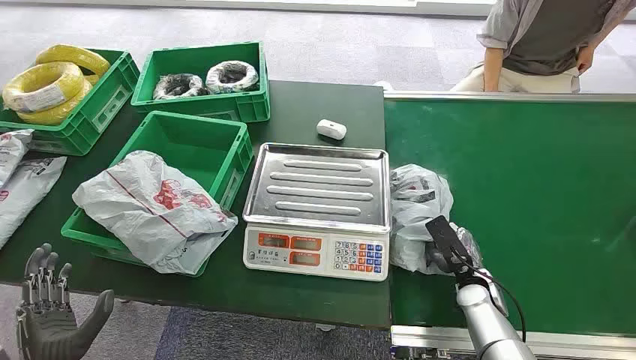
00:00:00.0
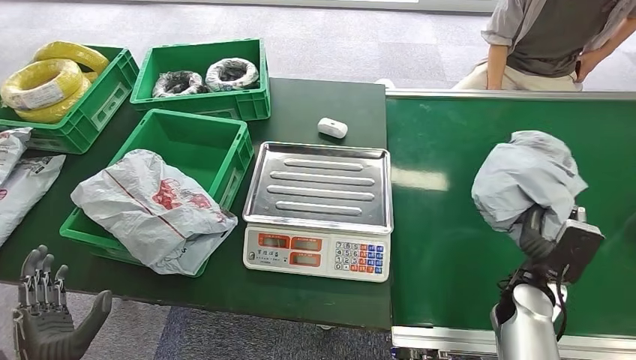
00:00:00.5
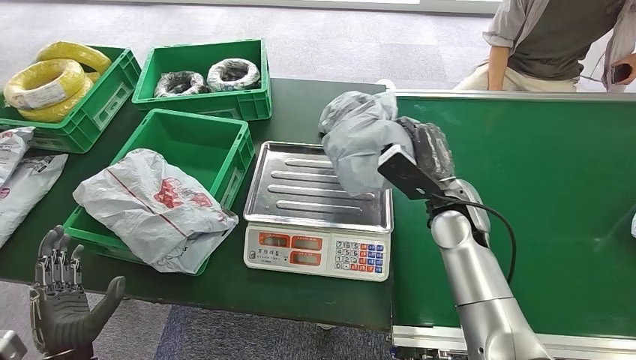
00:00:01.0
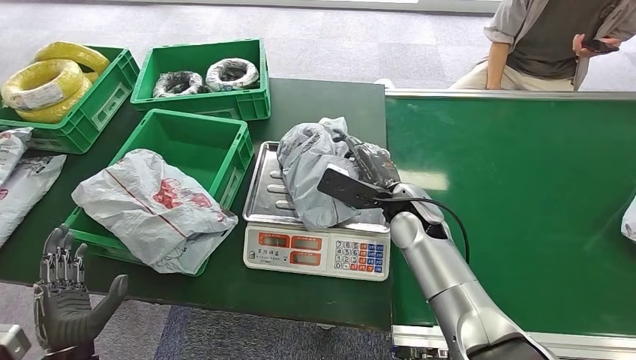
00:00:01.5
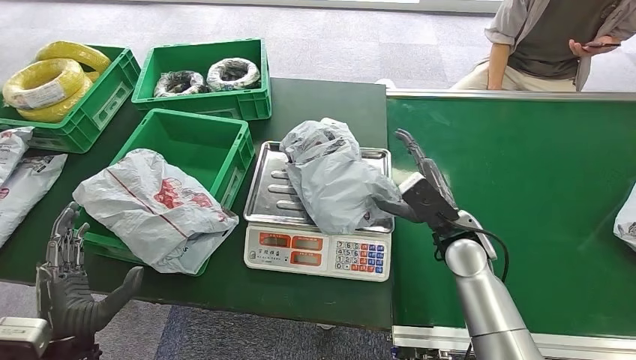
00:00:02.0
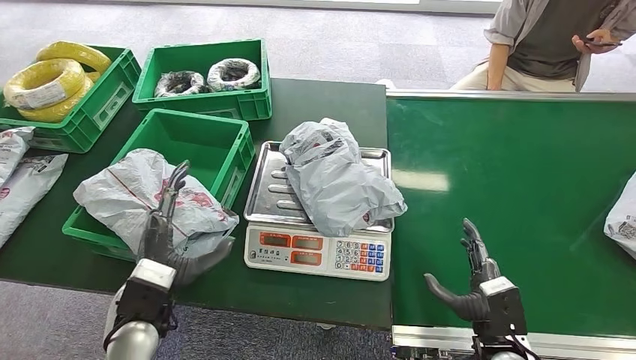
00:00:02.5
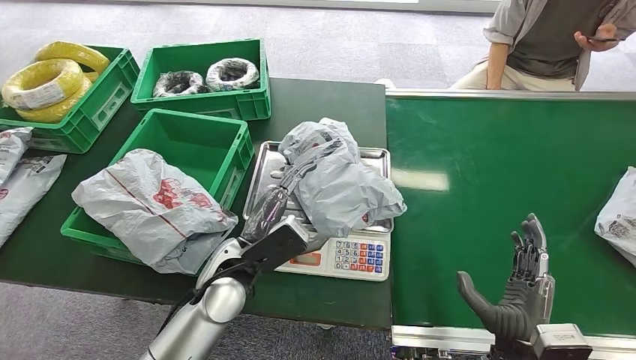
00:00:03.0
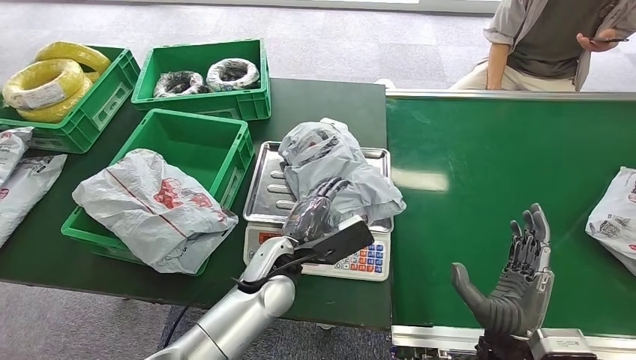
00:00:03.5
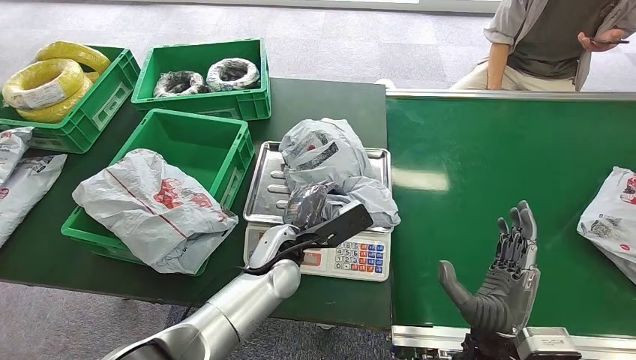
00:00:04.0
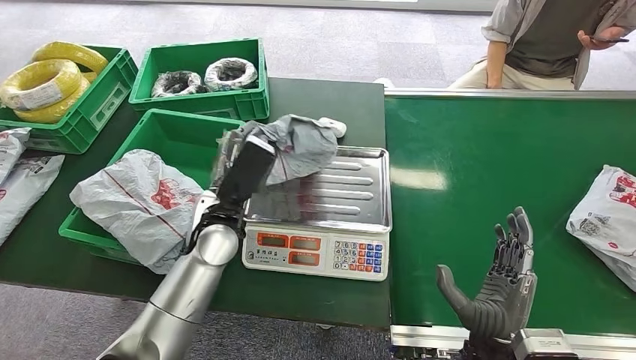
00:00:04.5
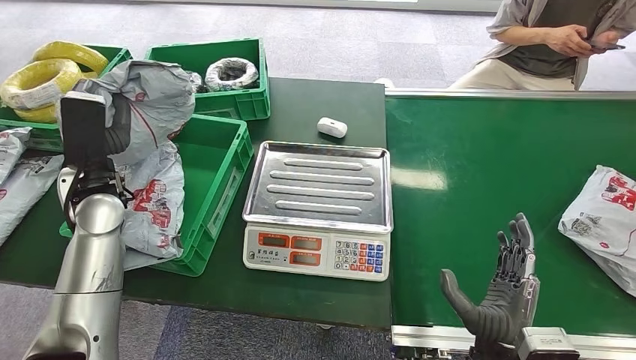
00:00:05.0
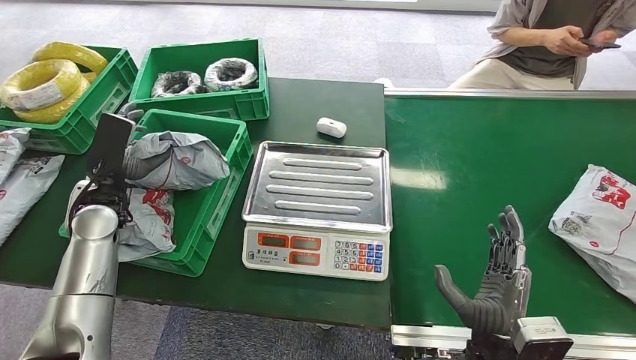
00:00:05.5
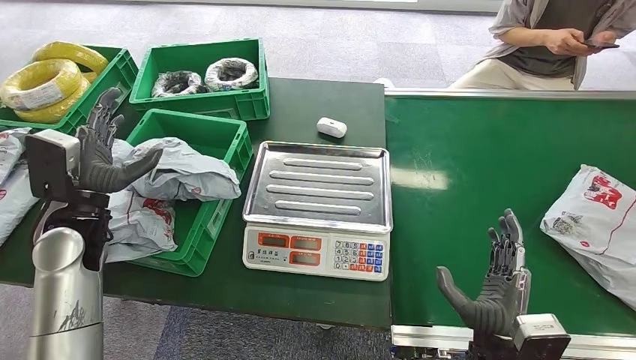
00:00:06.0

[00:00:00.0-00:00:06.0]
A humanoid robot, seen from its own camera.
Step, 00:00:00.0 to 00:00:00.5: Pick up the package from the conveyor belt.
Step, 00:00:01.0 to 00:00:01.5: Place the package onto the inbound machine.
Step, 00:00:02.0 to 00:00:04.5: Pick up the package from the inbound machine.
Step, 00:00:05.0 to 00:00:06.0: Place the package into the parcel locker.
00:00:02.0 to 00:00:04.0: The left hand is displaced to the right and forward by approximately 30 cm. Meanwhile the right hand moves backward, approximately 15 cm.
